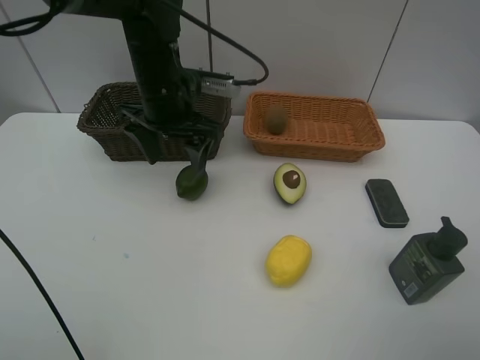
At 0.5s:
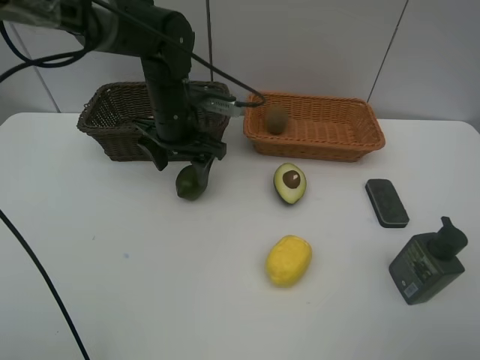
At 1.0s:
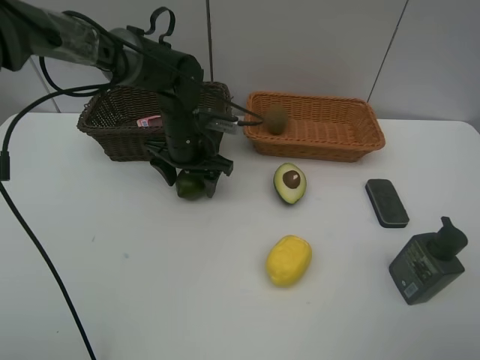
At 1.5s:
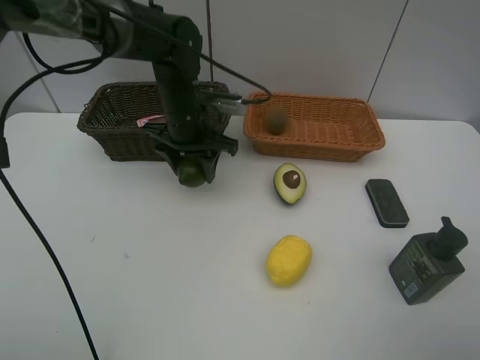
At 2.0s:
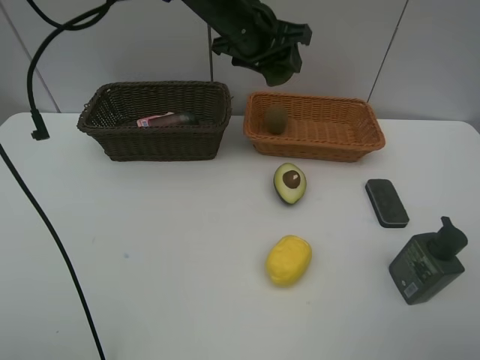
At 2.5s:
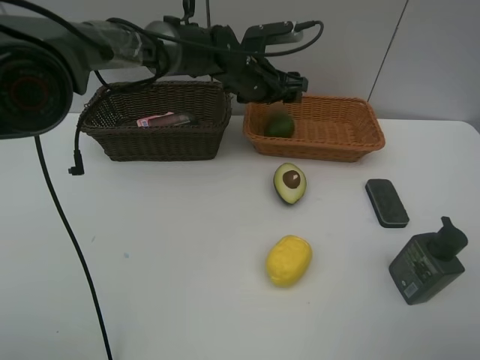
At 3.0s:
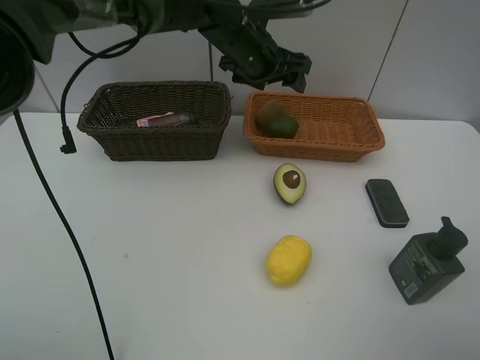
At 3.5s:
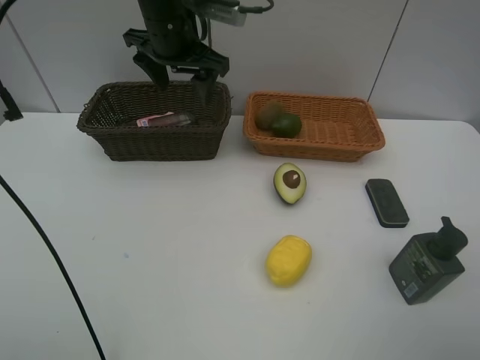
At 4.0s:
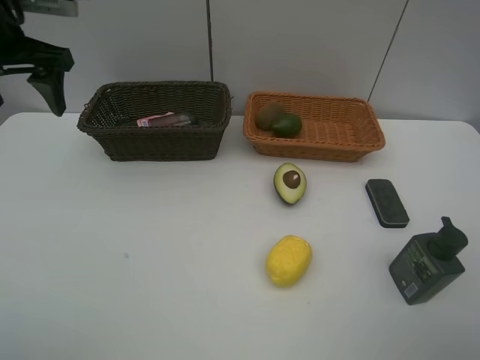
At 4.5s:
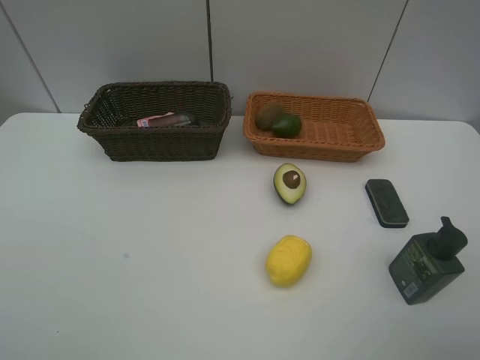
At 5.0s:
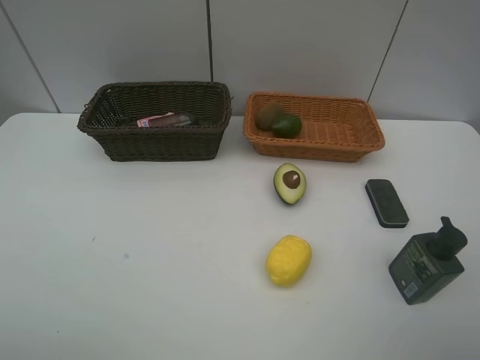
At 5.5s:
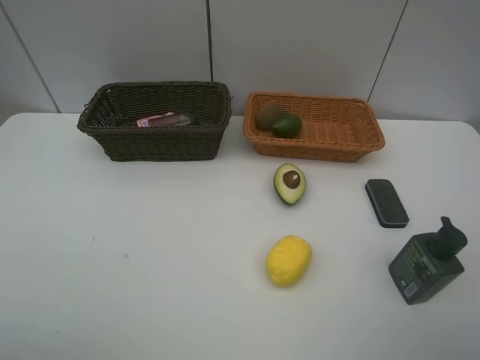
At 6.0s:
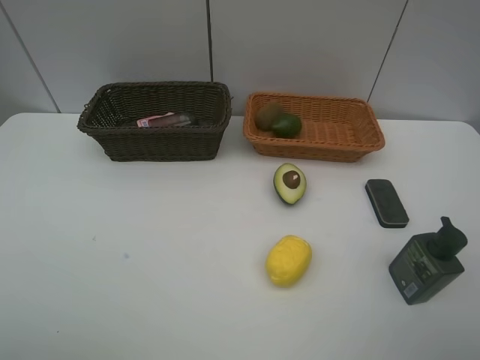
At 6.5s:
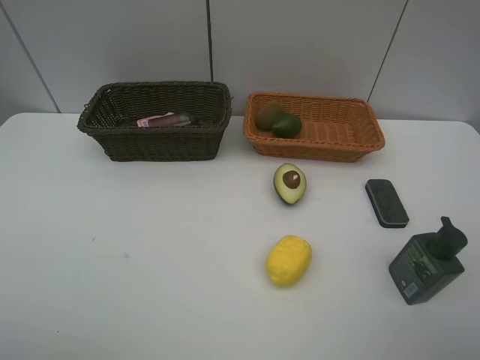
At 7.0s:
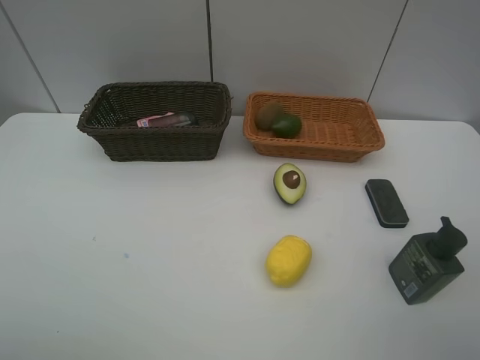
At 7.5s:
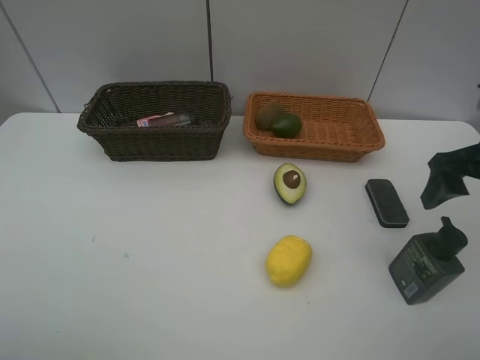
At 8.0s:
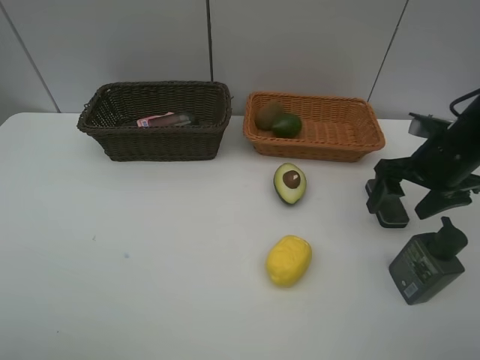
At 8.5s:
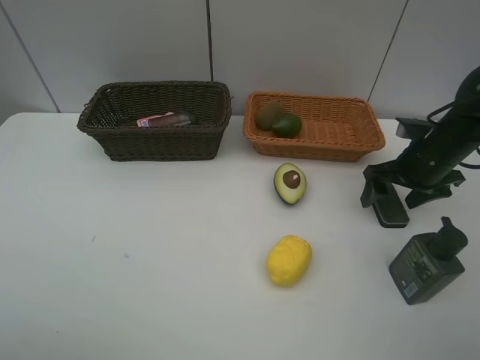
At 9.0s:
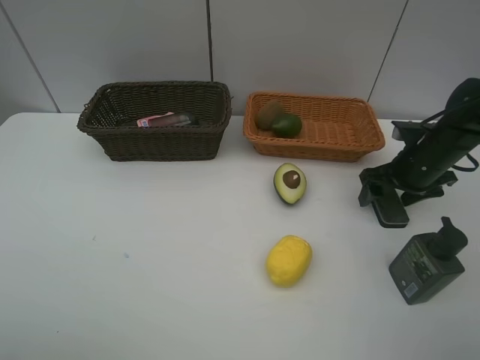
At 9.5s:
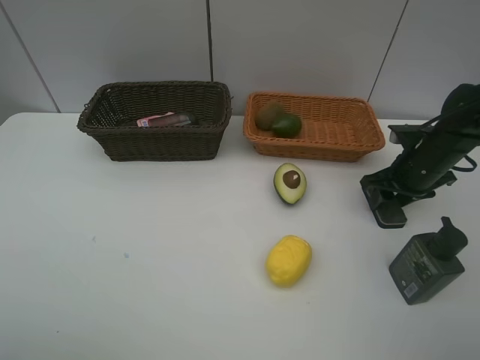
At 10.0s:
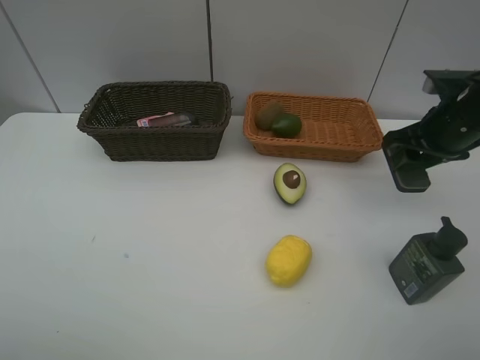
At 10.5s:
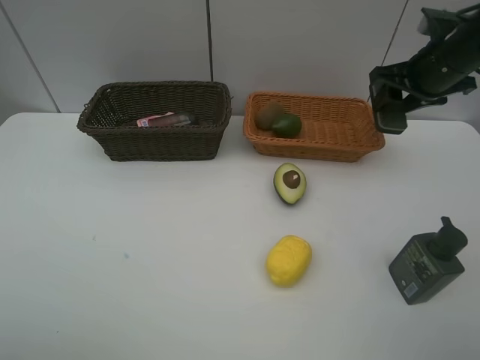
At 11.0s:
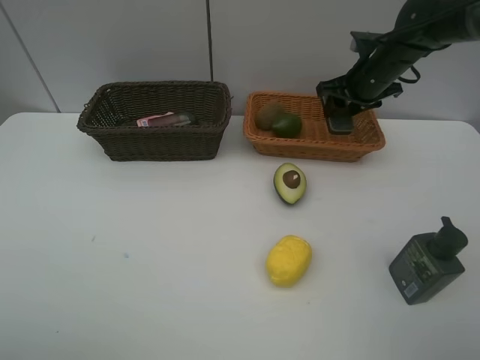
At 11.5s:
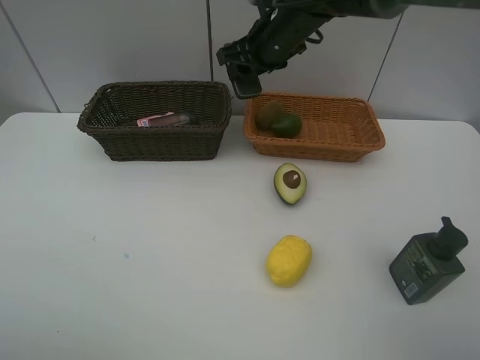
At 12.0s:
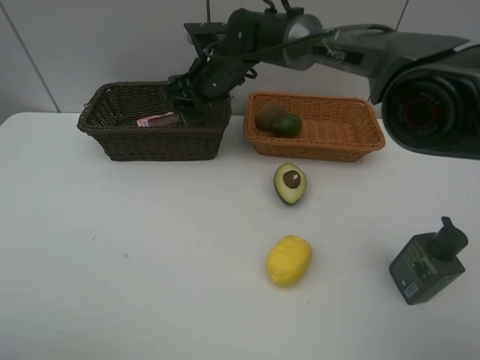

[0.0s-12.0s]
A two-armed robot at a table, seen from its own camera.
Task of the whole recording: Place multiple objects separately in different baskets.
Step, 0.0s to 1.5s: Pick up the lime with left gripper.
Step, 2.0s to 2.5s: Place the lime in the light basket with left gripper.
Step, 3.0s to 9.5s: Pick up blackboard eraser with right gripper.
0.0s to 2.0s: The left gripper moves to the right, forward and upward, some 15 cm, and closes up.
2.0s to 4.0s: The left gripper goes roughly 30 cm to the left, and opens.
4.0s to 6.0s: The left gripper goes some 35 cm backward.
6.0s to 8.0s: The right gripper heads forward, covering about 30 cm.
8.0s to 10.0s: The right gripper closes.
10.0s to 12.0s: The right gripper heads to the left and forward, covering some 35 cm.

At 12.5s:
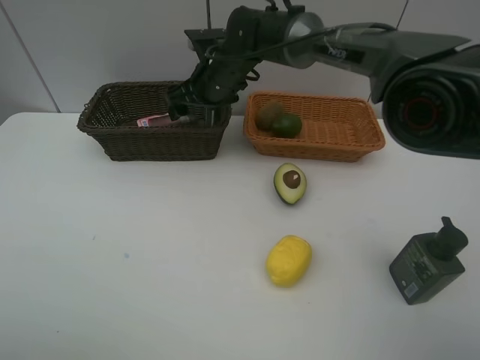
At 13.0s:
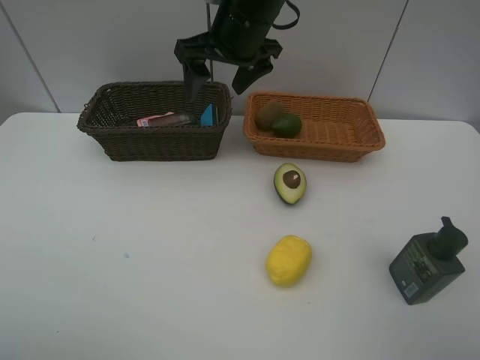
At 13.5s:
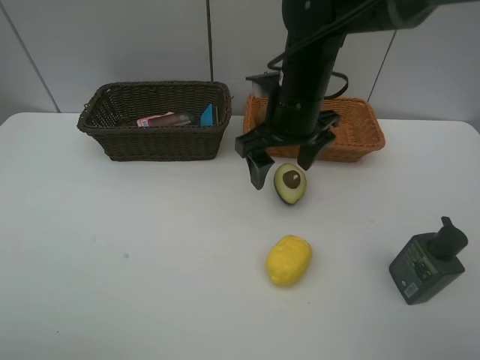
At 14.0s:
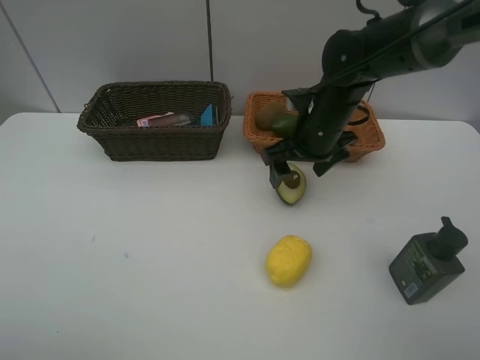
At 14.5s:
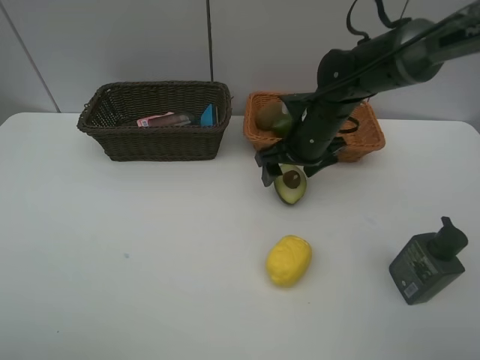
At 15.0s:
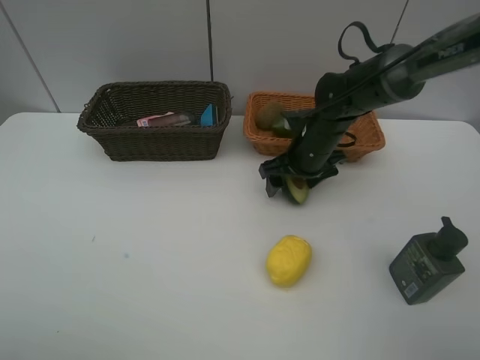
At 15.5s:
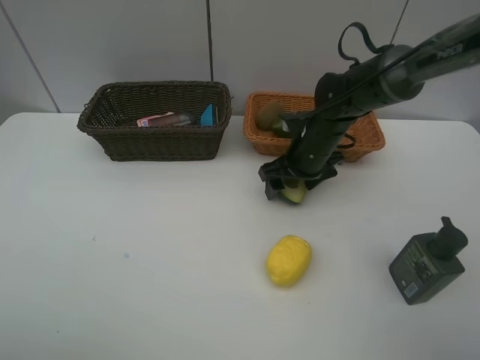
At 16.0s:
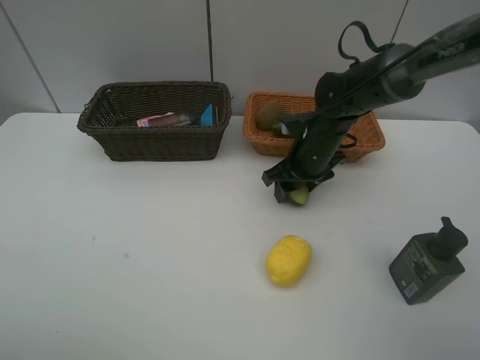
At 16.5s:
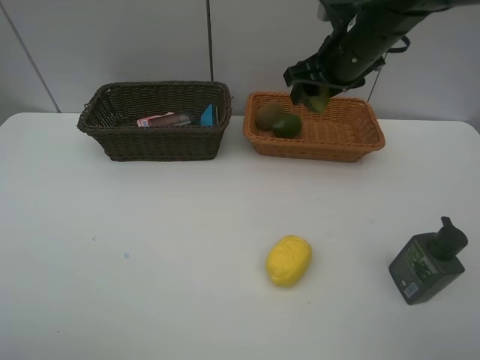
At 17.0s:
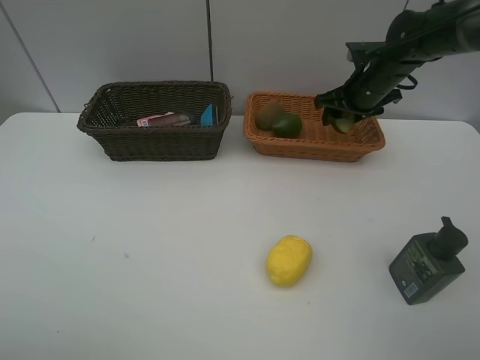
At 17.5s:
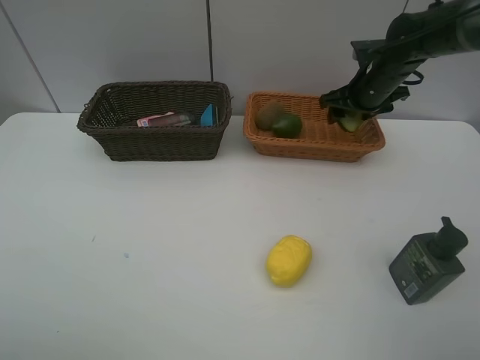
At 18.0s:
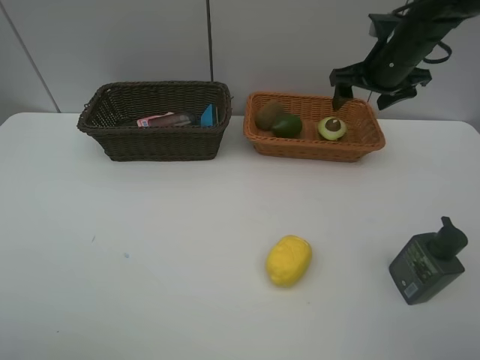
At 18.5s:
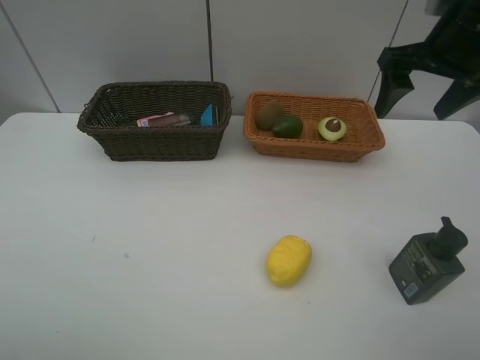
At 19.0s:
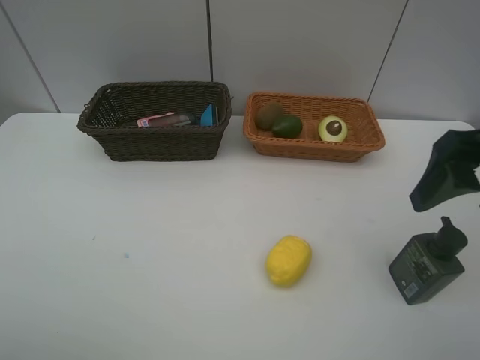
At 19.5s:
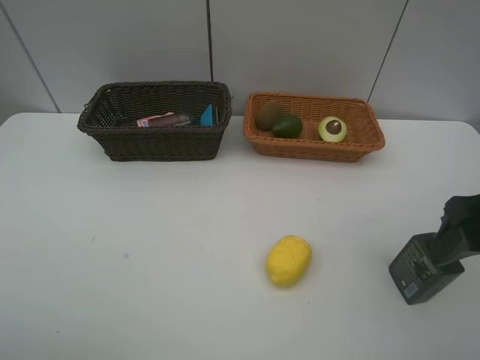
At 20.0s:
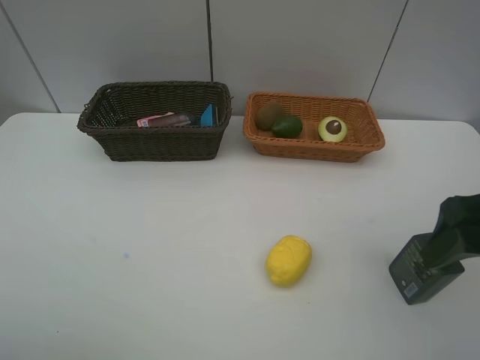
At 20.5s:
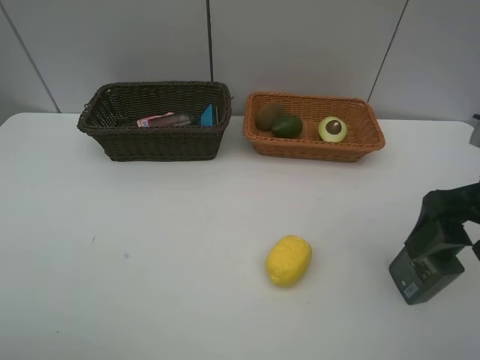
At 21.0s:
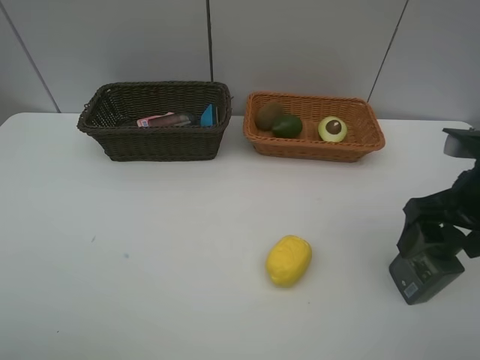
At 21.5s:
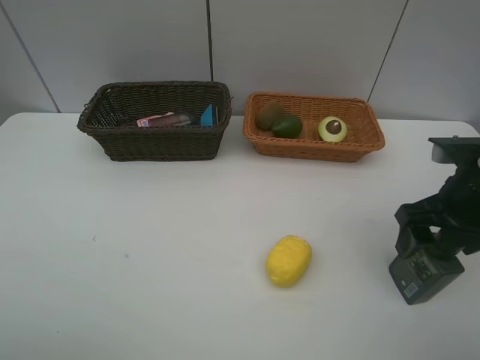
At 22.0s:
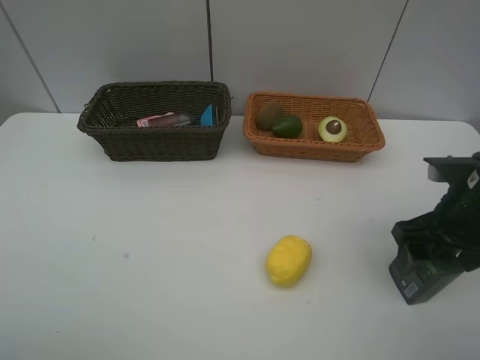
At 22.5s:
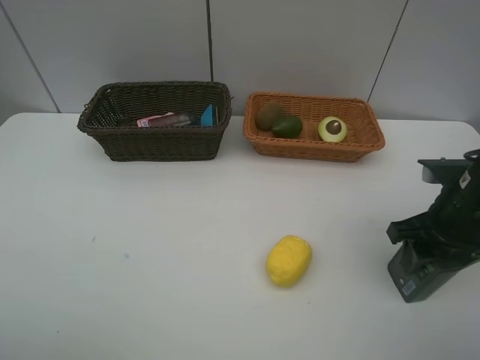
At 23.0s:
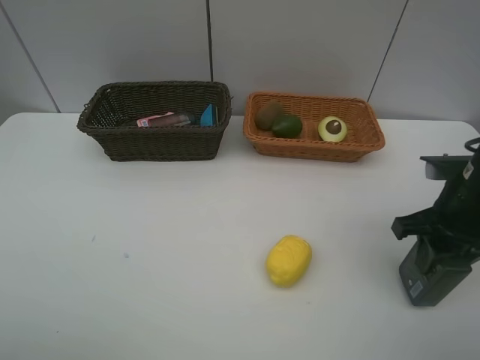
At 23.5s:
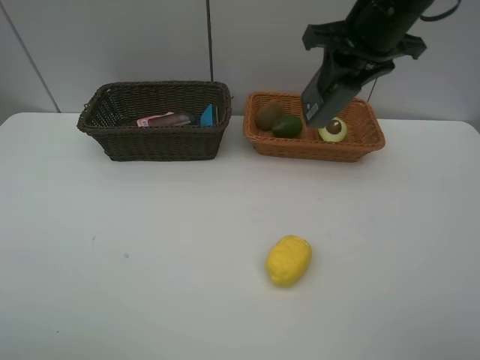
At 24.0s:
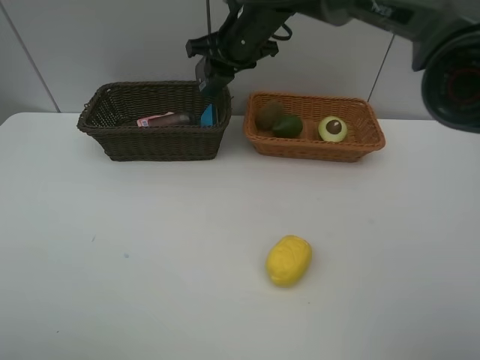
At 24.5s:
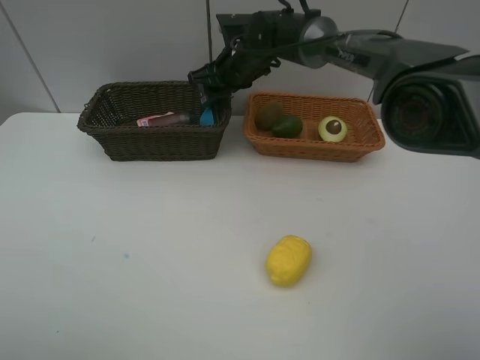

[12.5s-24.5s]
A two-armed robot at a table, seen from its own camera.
Task of the whole recording: Place multiple objects separately in different baskets.
Step, 13.0s to 16.0s: Pick up the avocado with right gripper.
Step, 16.5s to 17.5s: Place the avocado in the light basket with right gripper.
Step, 18.0s to 23.0s: Pick up the hard facial cleanser with right gripper.
12.5s to 14.5s: The right gripper shifts approximately 15 cm to the right and backward.
14.5s to 16.5s: The right gripper heads upward, covering about 10 cm, and closes.
16.5s to 18.5s: The right gripper shifts about 15 cm backward, to the right and upward, and opens up.
18.5s to 20.5s: The right gripper shifts about 15 cm backward and downward.
20.5s to 22.5s: The right gripper goes about 10 cm downward, and closes up.
22.5s to 24.5s: The right gripper heads forward and to the left, covering some 40 cm.

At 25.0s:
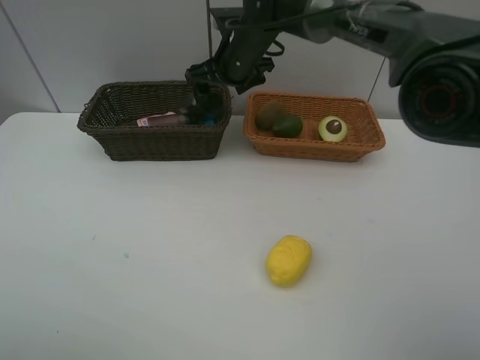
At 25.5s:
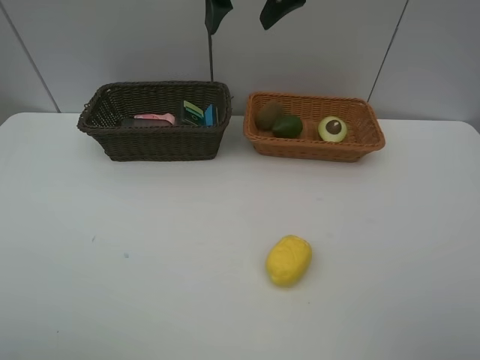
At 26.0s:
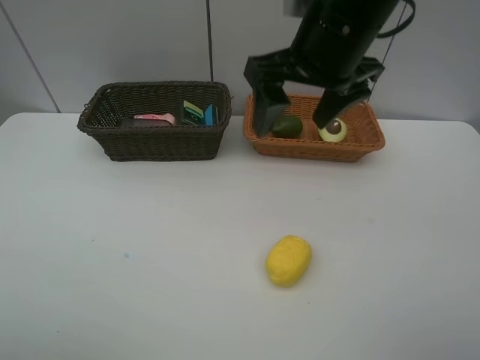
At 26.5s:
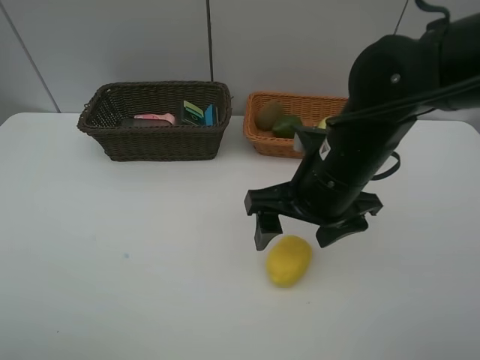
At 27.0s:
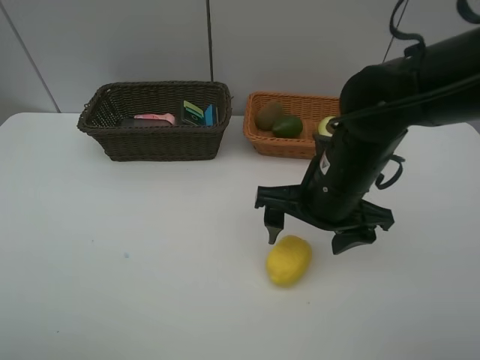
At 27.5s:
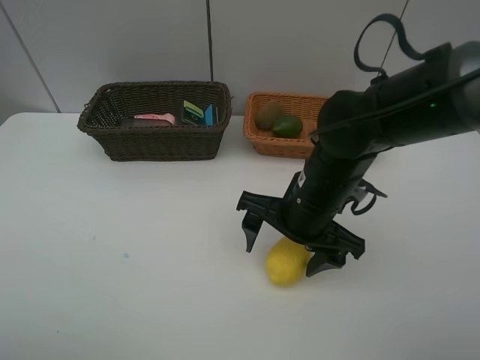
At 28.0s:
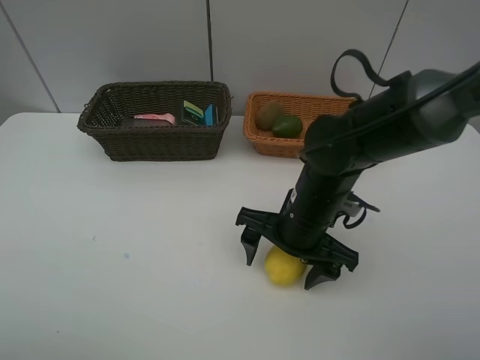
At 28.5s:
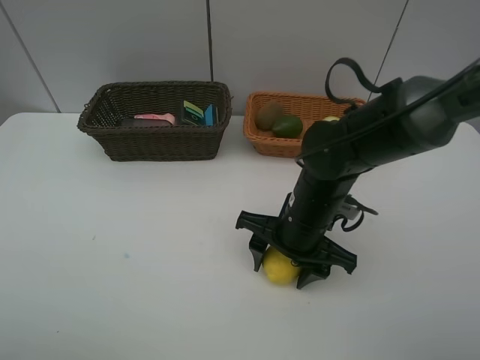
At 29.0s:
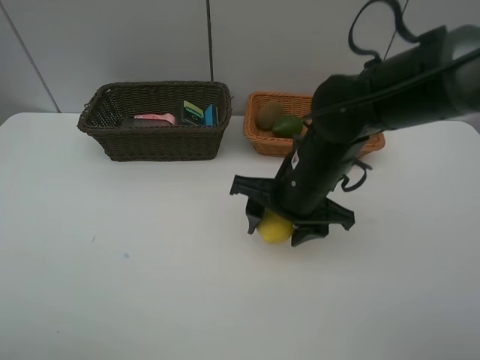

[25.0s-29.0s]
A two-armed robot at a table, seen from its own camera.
Task of the whole recording: Place multiple objects separately in different baskets.
Step, 25.5s to 29.0s: Pick up the lemon with right gripper.
25.0s to 27.0s: The right gripper is displaced backward and to the right by some 25 cm.
27.0s to 29.0s: The right gripper closes its fingers.
